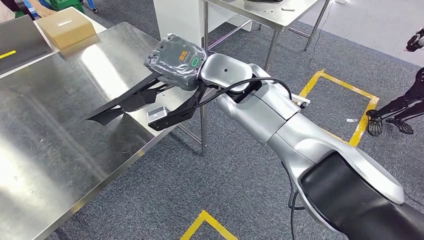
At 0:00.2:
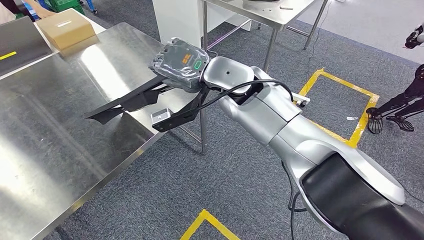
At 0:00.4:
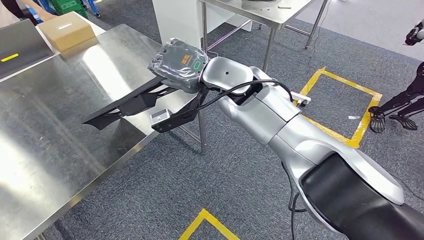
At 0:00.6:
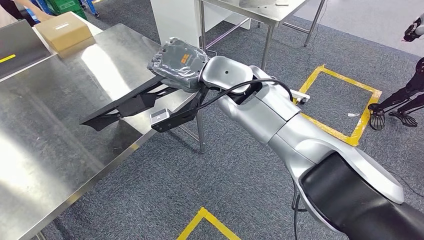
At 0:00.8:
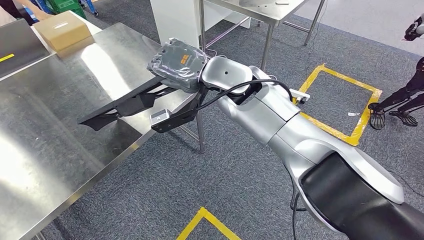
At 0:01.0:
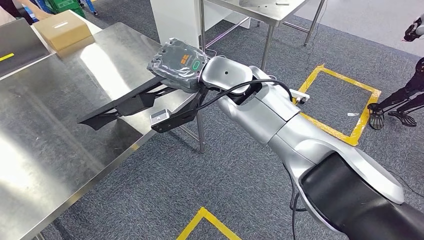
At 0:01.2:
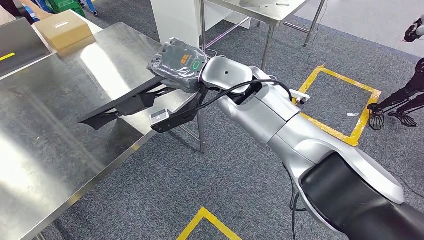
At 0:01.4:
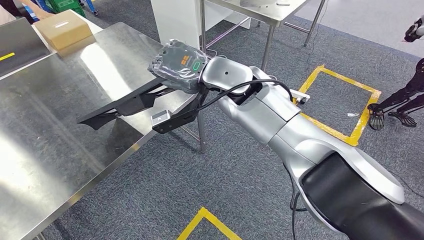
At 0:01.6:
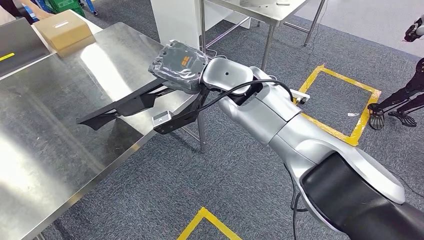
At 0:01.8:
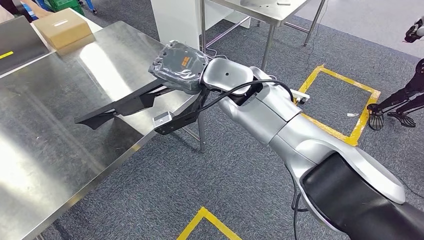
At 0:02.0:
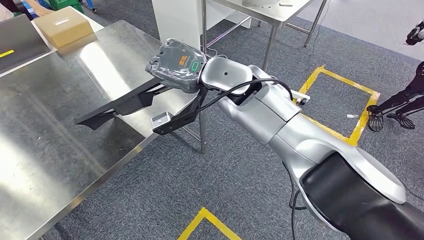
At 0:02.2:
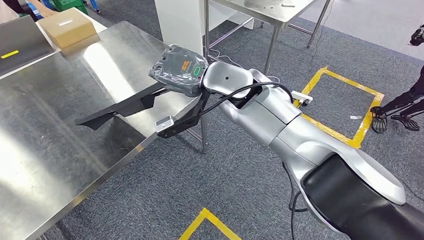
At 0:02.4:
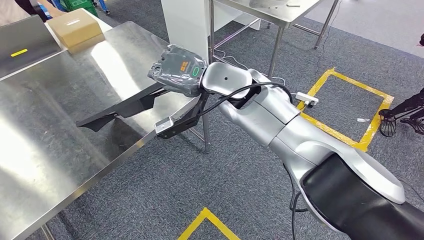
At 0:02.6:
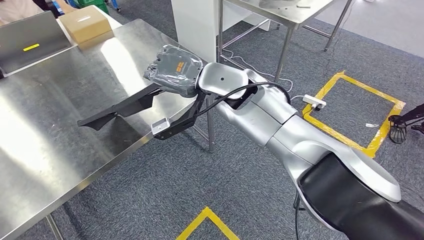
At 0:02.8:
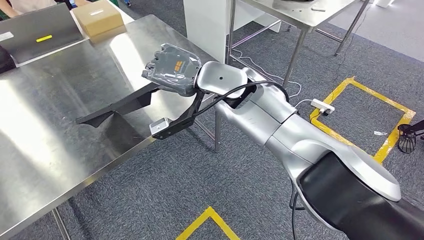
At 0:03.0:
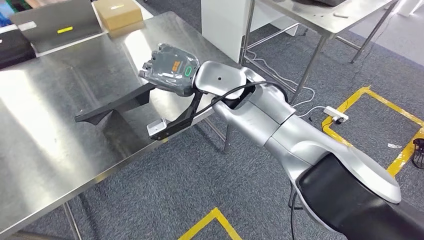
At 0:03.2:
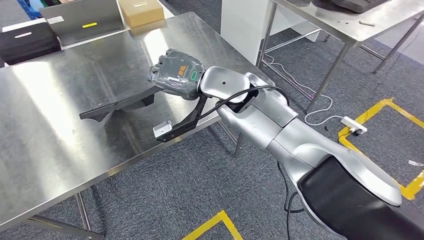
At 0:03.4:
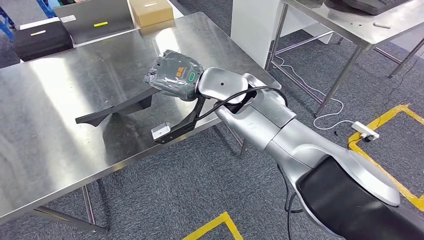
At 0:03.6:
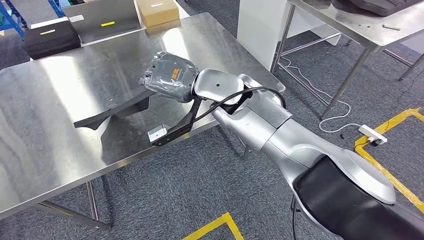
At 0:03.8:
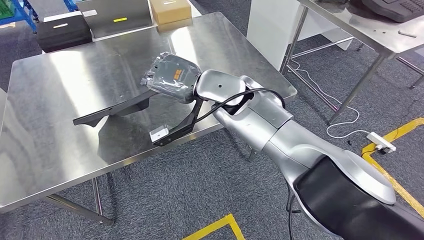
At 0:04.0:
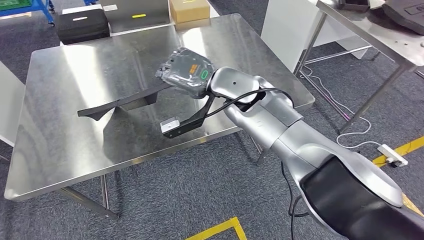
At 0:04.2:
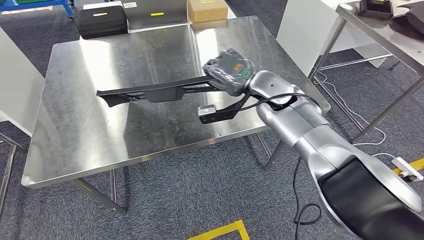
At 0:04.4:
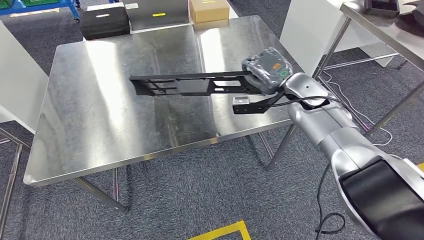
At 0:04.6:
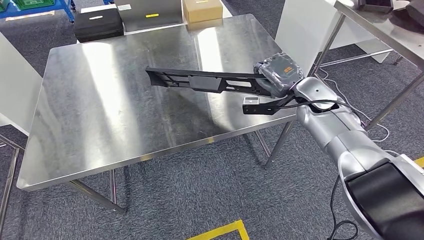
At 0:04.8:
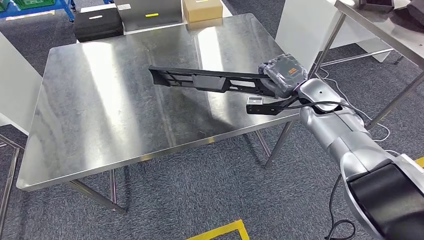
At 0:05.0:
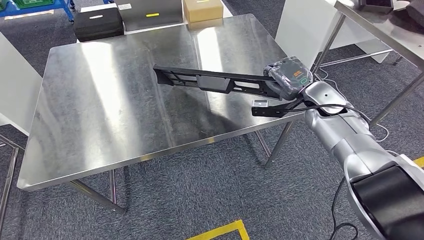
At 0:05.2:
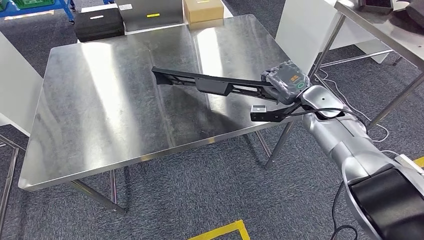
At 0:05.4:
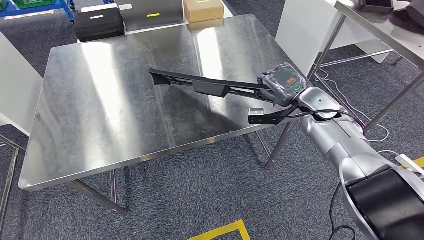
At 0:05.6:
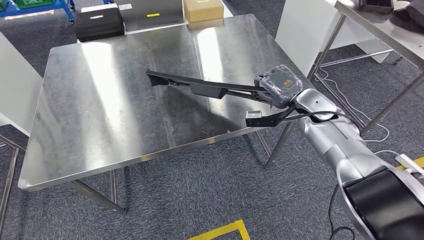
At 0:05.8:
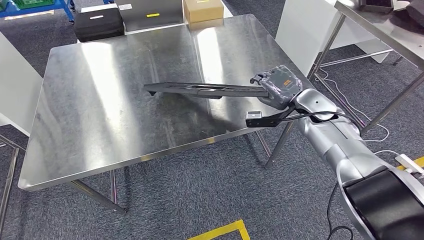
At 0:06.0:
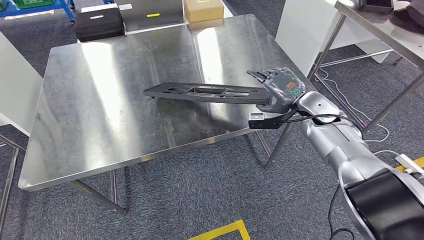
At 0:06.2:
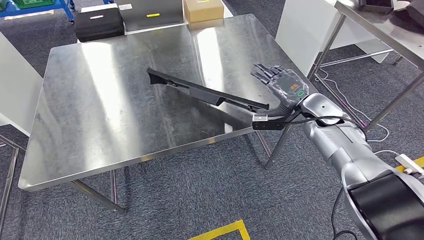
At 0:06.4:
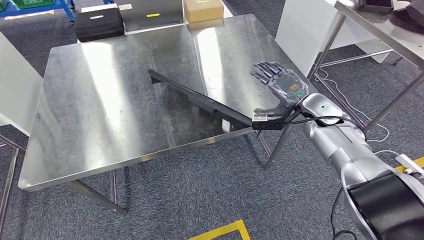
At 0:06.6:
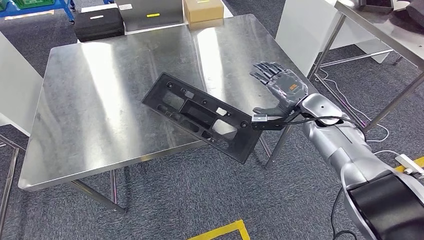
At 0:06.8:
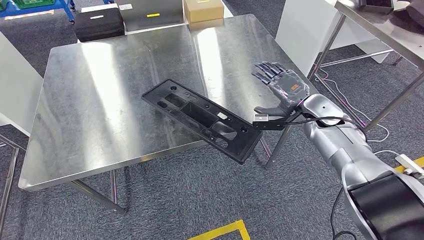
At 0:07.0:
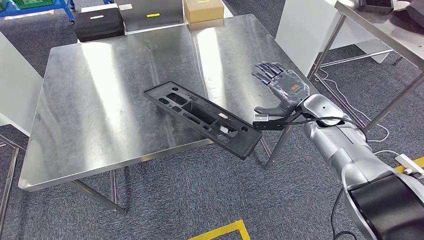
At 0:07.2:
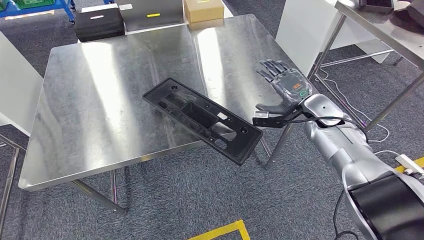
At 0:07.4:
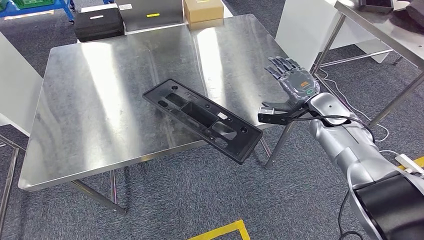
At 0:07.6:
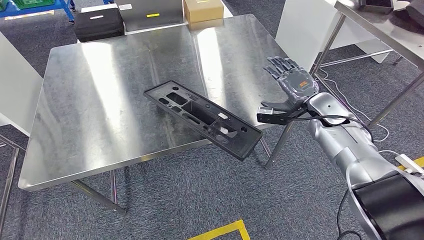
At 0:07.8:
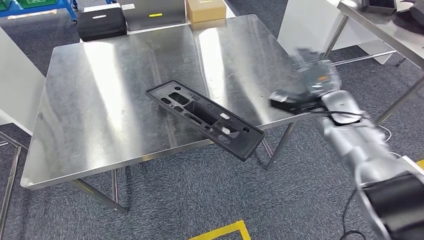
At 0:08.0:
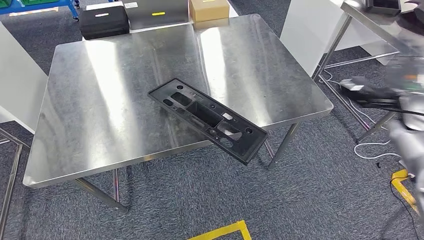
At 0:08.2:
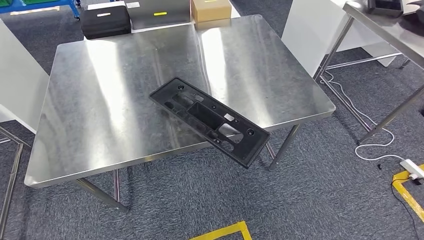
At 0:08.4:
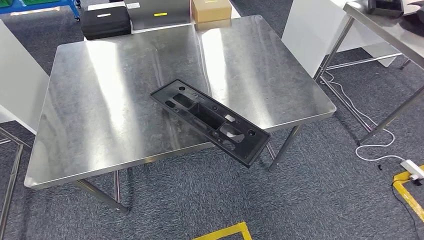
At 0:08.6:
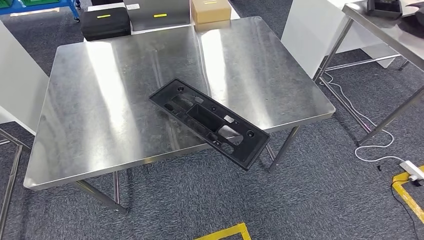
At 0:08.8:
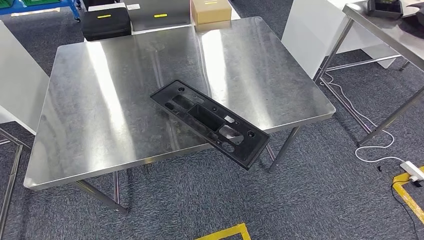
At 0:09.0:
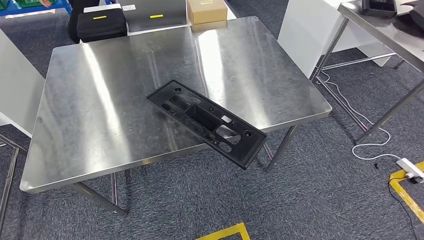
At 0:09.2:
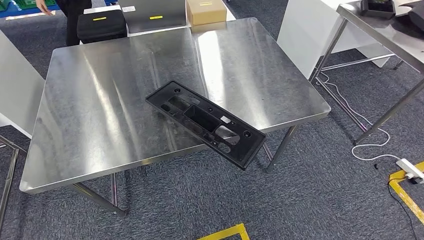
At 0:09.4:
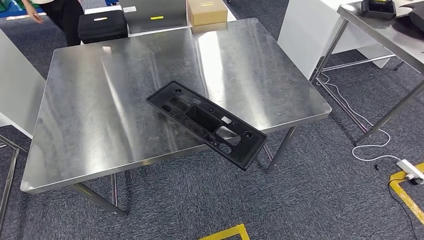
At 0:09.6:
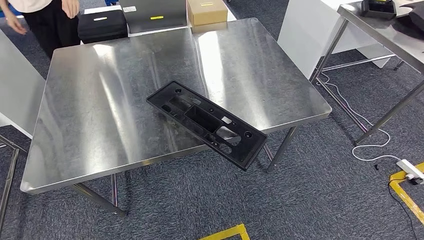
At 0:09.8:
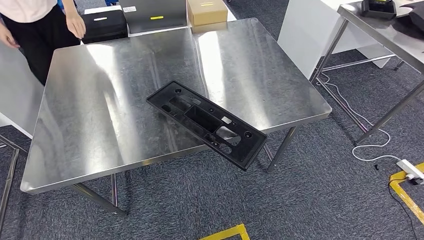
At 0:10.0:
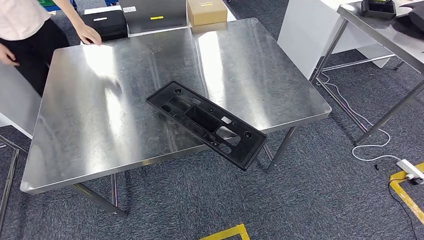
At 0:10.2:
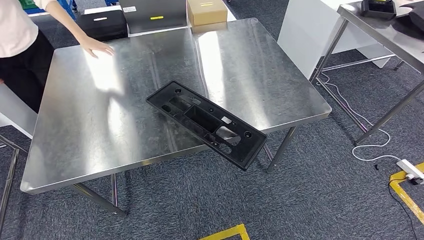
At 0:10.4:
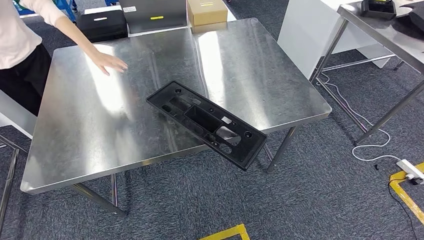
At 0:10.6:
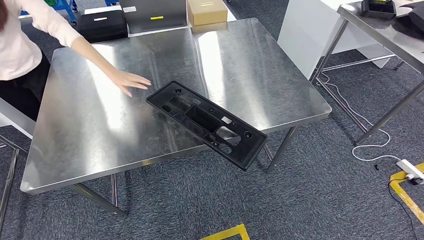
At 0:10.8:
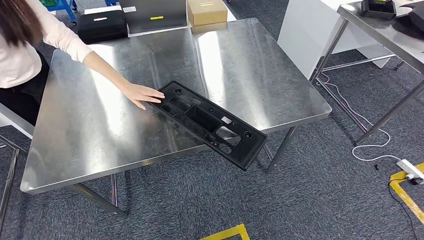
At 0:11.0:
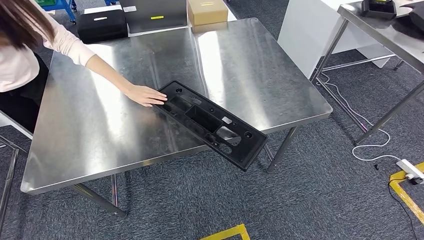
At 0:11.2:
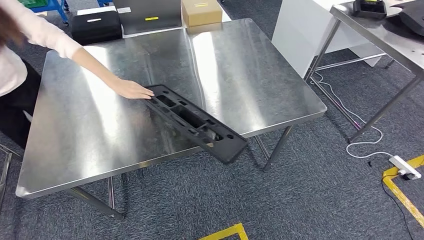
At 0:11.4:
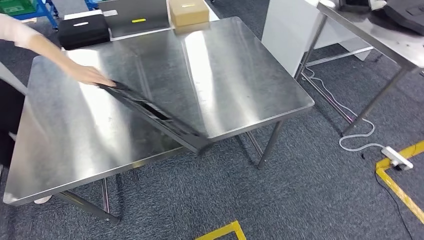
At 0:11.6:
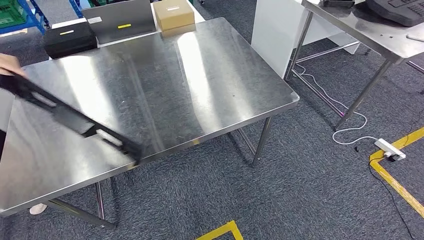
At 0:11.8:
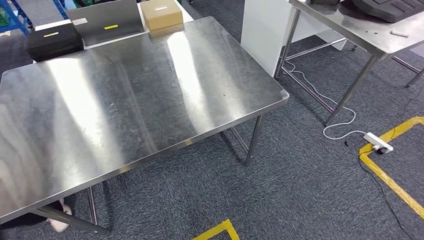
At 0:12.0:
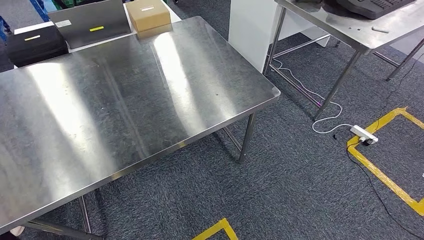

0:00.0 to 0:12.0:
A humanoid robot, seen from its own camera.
Step, 0:00.0 to 0:06.6: Insert the large material into the corresponding slot on the workbench.
0:00.0 to 0:01.6: Both hands stay about where they are.
0:06.0 to 0:07.6: The hands make only small movements.
0:09.0 to 0:10.4: The right hand heads to the left and downward, covering roughly 25 cm.

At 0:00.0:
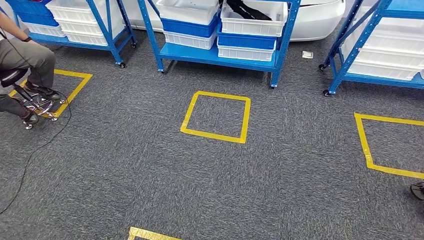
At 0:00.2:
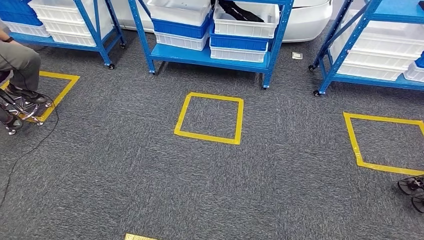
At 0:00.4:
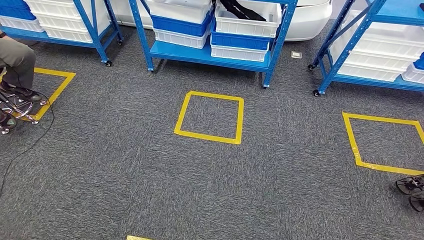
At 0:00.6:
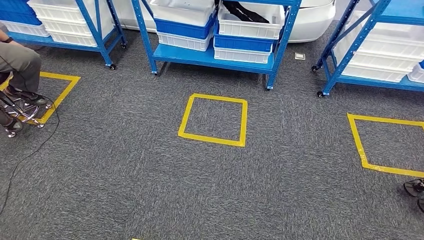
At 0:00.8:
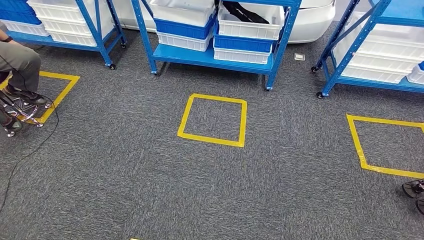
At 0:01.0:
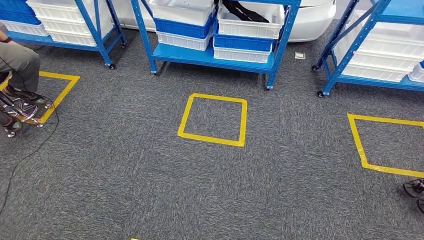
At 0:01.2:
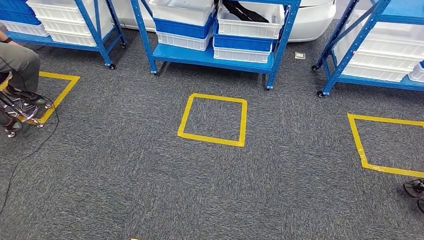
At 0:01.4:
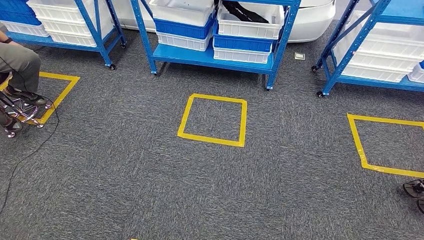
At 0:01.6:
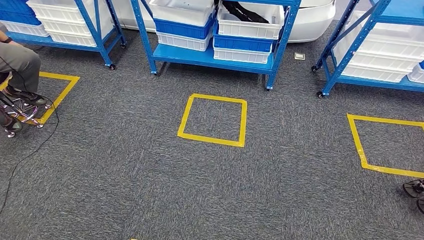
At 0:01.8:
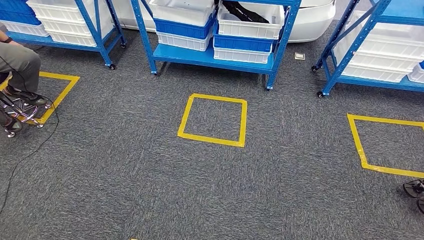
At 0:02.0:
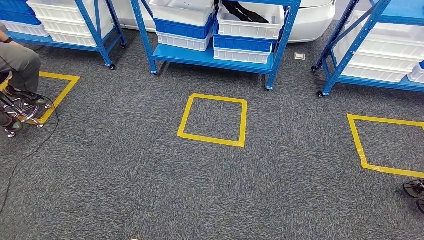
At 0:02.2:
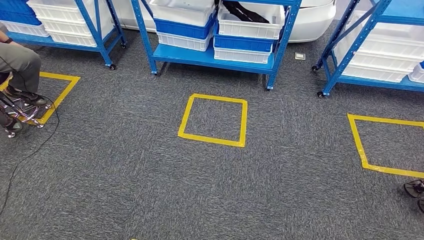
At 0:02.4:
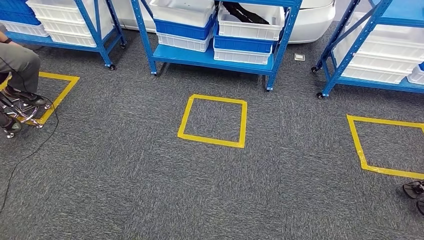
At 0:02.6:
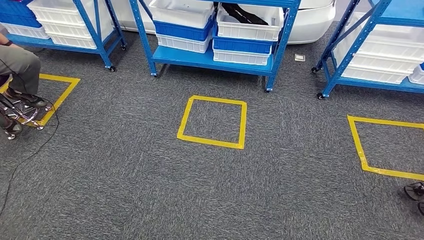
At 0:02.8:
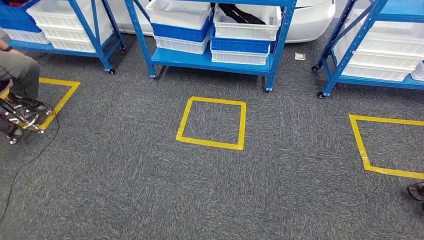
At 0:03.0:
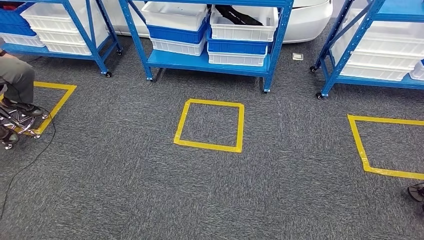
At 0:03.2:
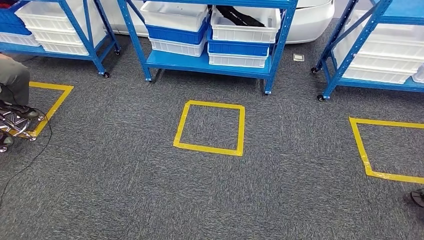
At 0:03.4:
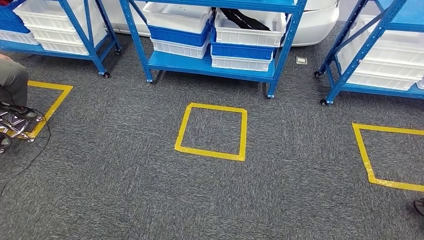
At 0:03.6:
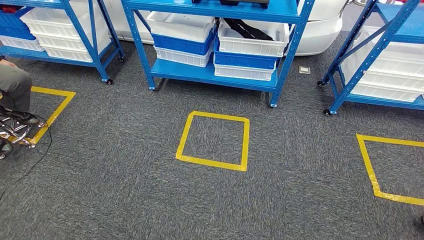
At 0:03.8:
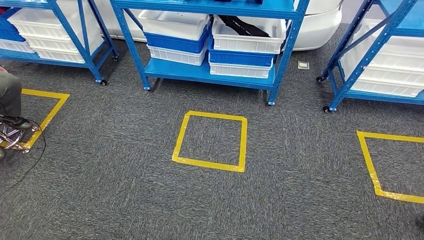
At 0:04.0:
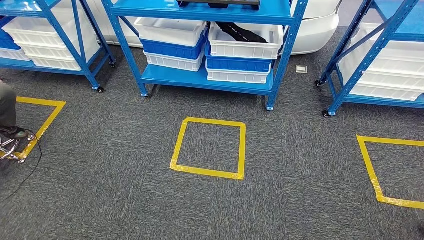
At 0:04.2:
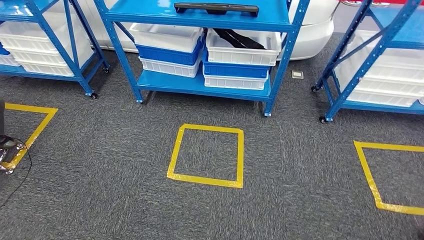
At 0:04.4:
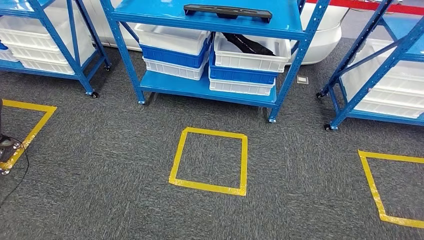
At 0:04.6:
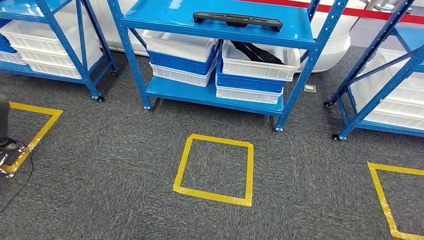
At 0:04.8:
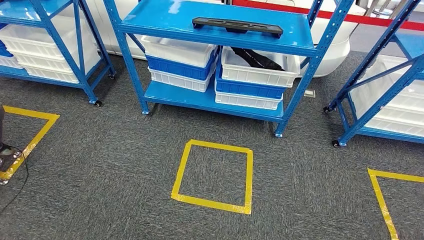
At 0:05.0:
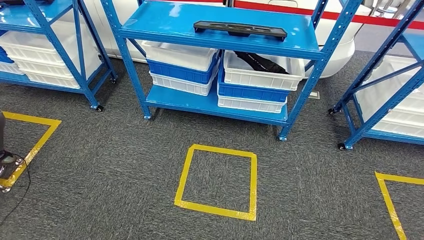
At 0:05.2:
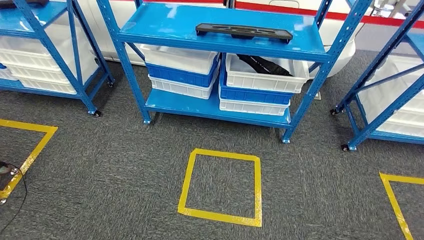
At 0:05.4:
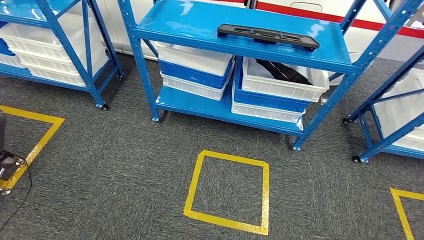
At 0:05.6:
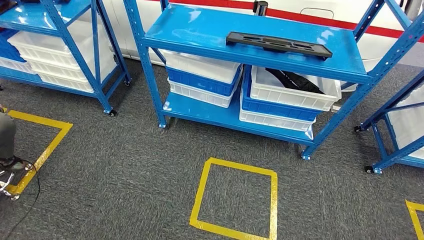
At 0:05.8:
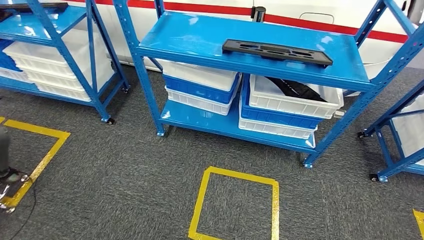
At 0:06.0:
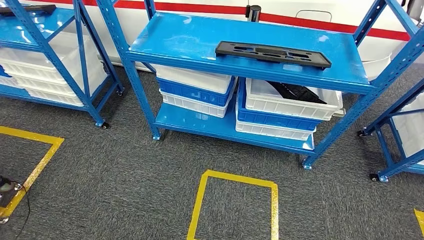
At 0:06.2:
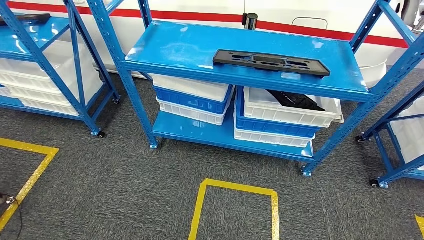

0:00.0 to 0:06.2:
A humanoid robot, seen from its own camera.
Step, 0:00.0 to 0:06.2: Move to the initial position of the shelf.
